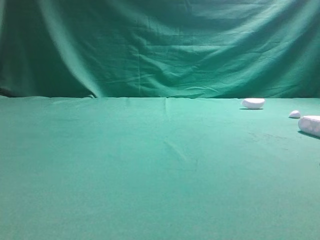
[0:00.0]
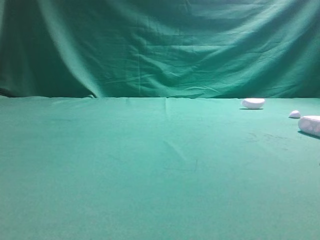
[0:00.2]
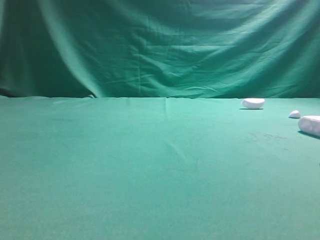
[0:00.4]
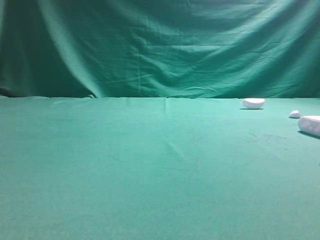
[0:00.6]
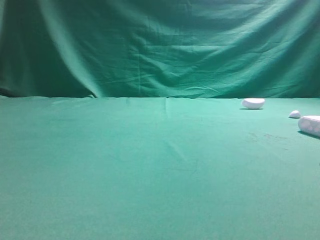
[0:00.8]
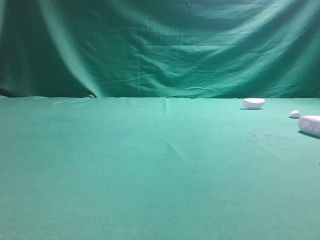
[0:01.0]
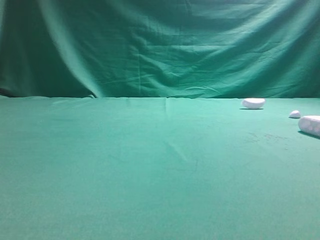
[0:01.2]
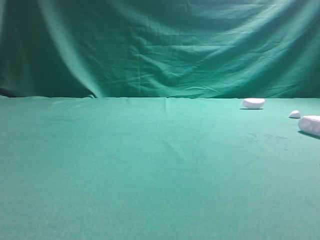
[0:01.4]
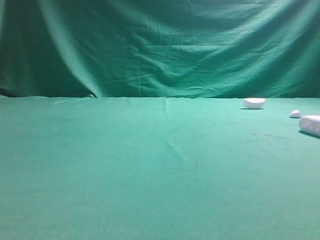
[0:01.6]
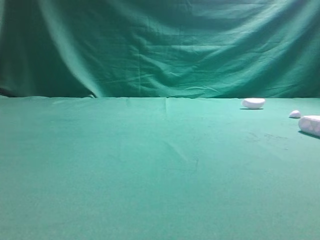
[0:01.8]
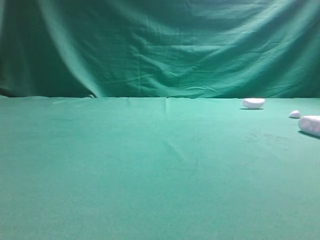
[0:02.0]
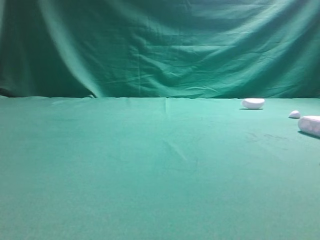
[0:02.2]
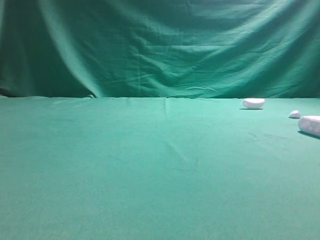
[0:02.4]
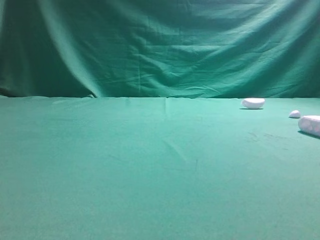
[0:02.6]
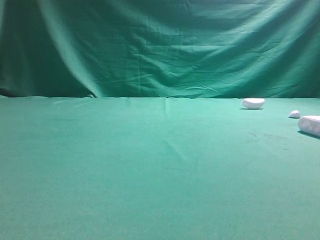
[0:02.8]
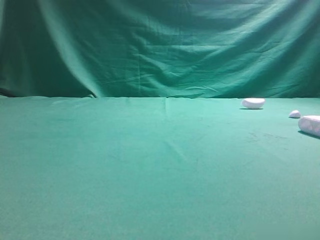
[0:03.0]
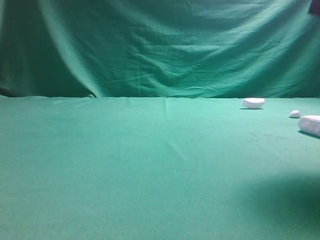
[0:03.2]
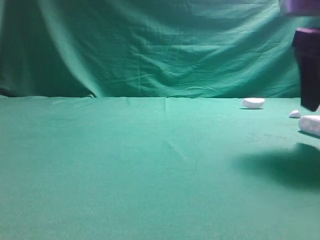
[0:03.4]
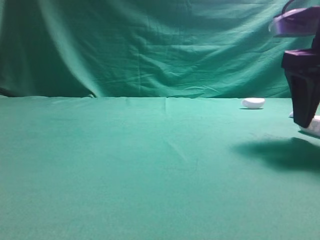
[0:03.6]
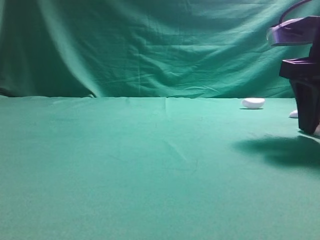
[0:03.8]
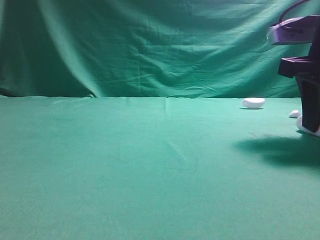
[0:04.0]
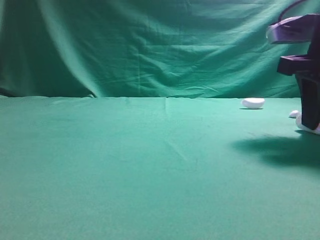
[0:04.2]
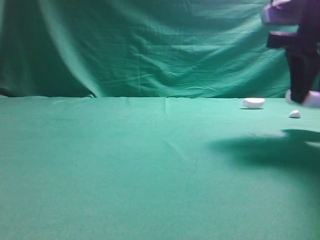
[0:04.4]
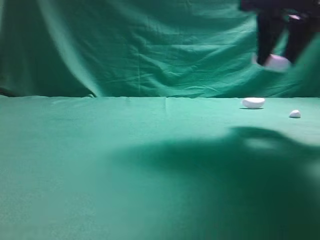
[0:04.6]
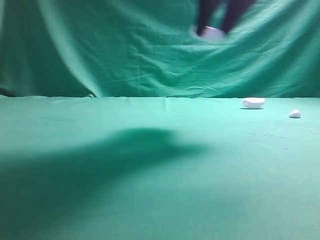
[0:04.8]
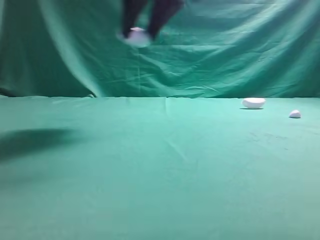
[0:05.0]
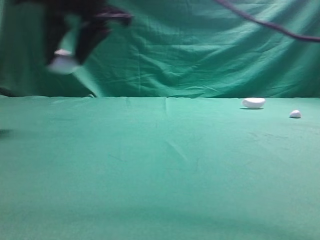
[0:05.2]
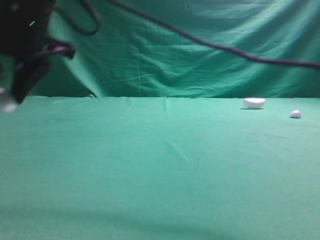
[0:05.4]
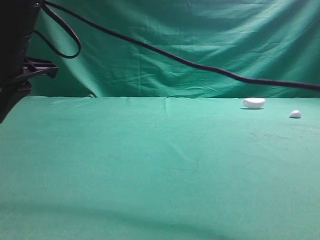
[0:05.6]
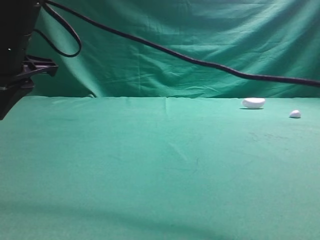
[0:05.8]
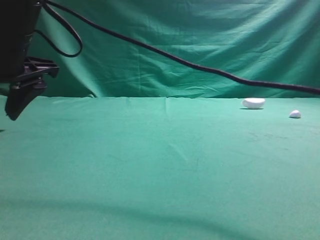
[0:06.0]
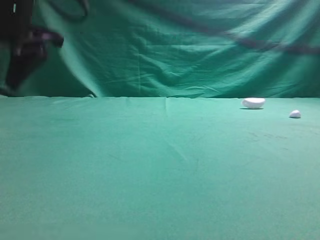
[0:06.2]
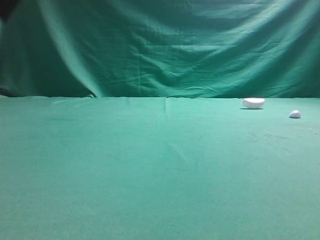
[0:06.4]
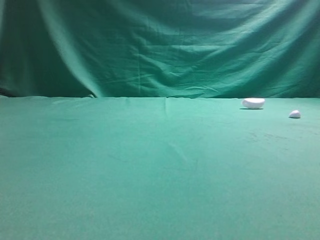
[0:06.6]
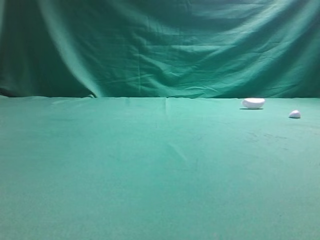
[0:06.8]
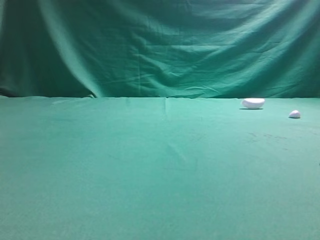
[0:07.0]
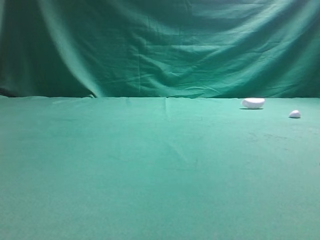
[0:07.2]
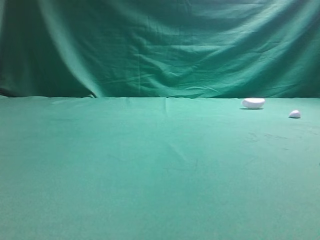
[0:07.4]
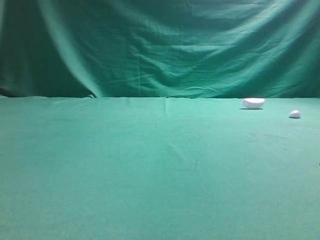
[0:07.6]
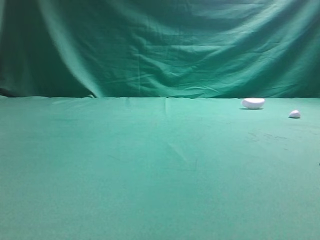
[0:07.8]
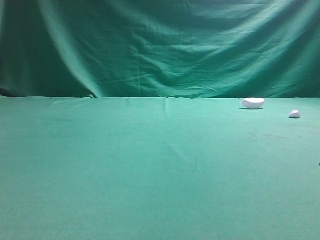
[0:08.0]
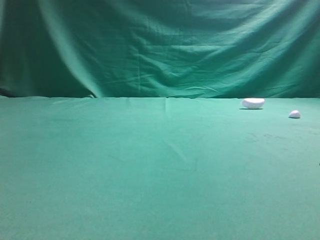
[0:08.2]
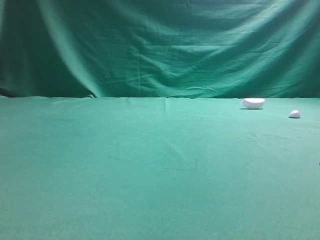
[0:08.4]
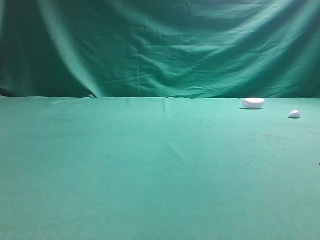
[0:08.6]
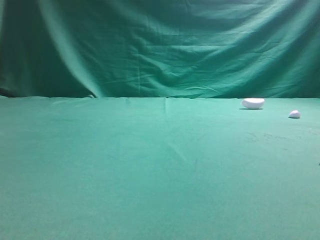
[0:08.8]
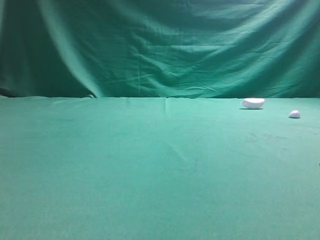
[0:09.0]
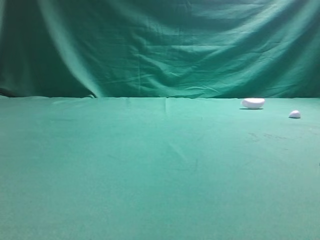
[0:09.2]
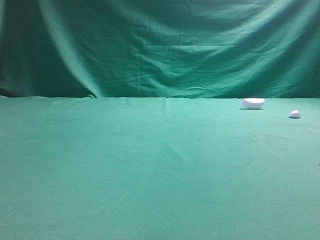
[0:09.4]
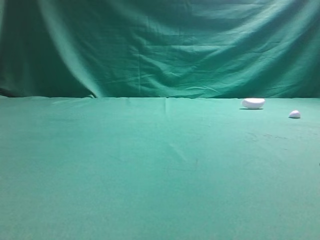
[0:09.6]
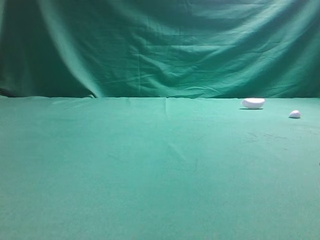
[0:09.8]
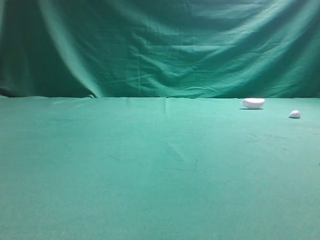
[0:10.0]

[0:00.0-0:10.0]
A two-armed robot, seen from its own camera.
Step, 0:00.0 to 0:04.4: Grasp the Bluetooth earphone case.
Step, 0:04.6 to 0:06.2: Place bluetooth earphone case on the left side of the table.

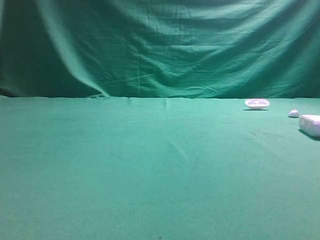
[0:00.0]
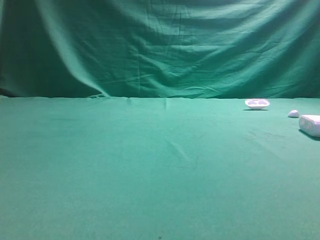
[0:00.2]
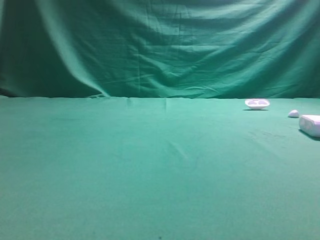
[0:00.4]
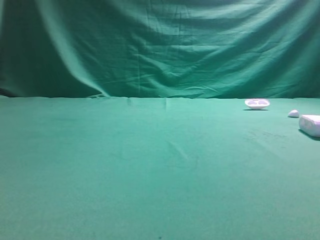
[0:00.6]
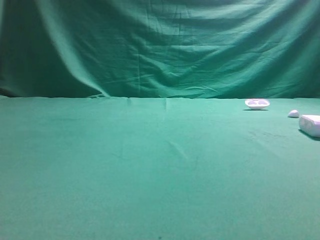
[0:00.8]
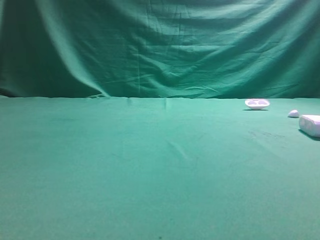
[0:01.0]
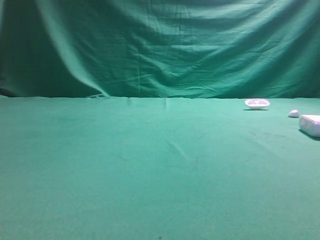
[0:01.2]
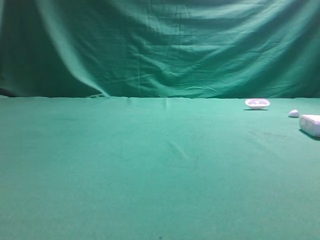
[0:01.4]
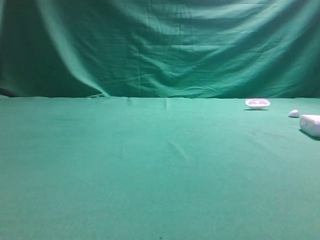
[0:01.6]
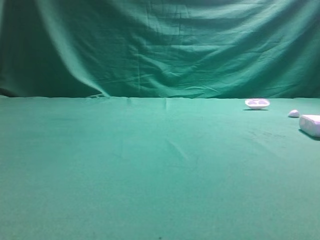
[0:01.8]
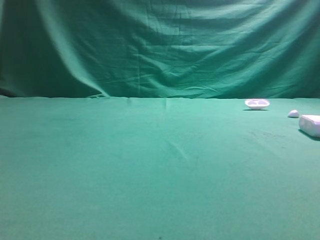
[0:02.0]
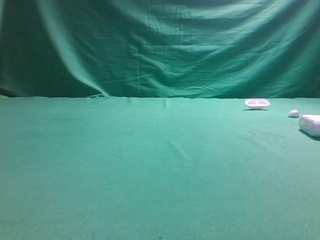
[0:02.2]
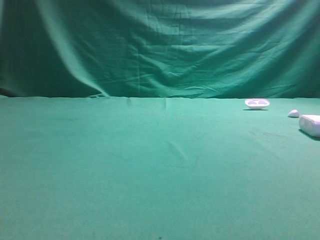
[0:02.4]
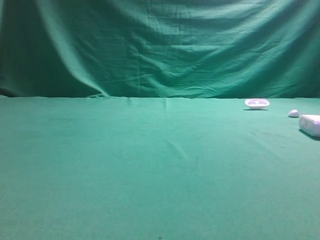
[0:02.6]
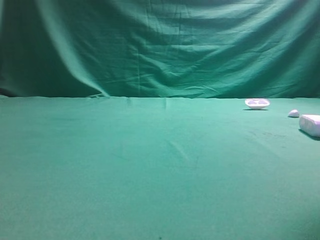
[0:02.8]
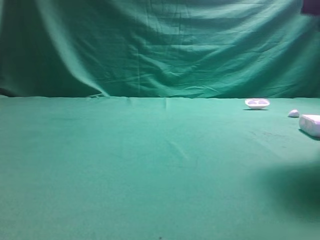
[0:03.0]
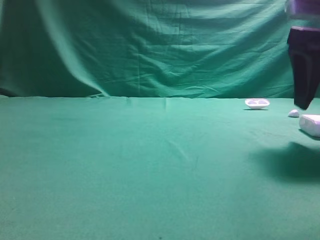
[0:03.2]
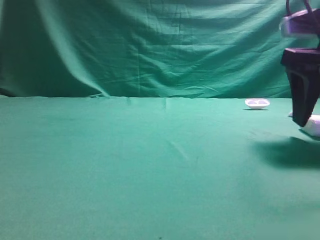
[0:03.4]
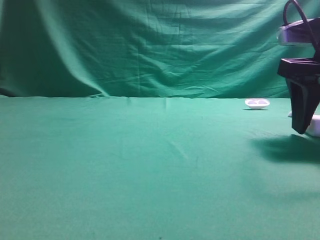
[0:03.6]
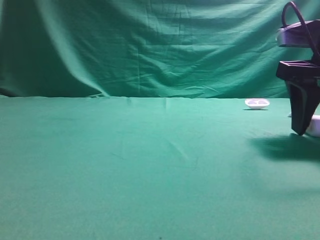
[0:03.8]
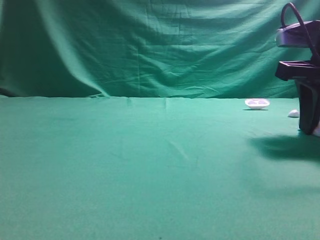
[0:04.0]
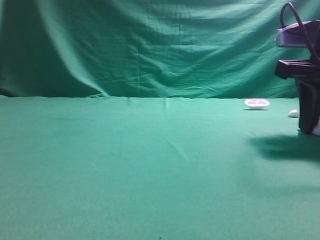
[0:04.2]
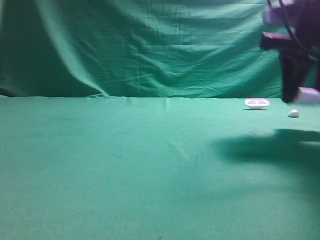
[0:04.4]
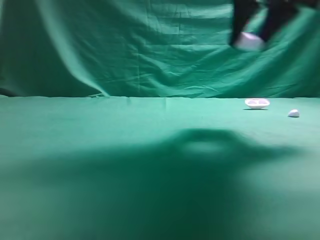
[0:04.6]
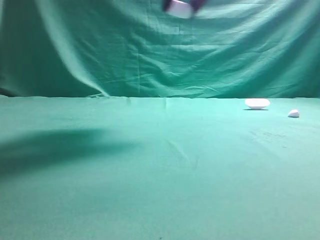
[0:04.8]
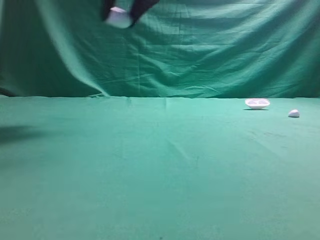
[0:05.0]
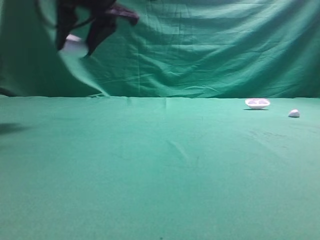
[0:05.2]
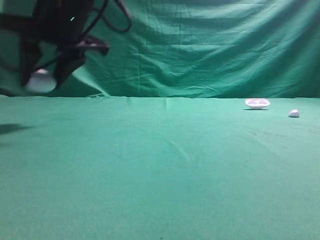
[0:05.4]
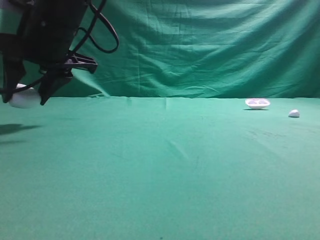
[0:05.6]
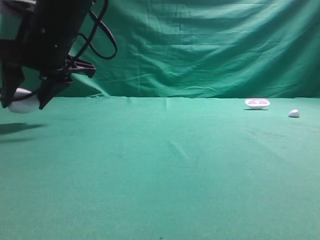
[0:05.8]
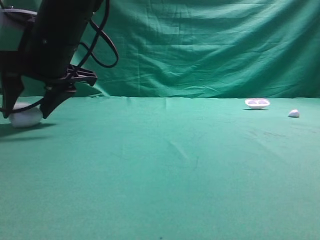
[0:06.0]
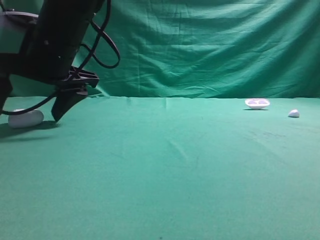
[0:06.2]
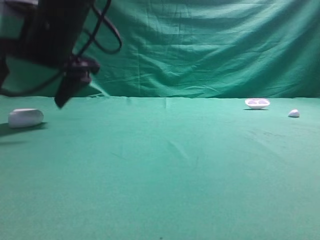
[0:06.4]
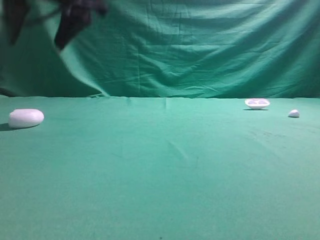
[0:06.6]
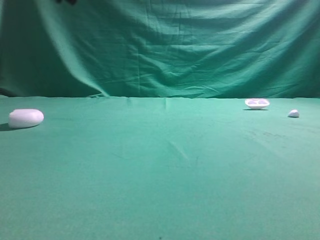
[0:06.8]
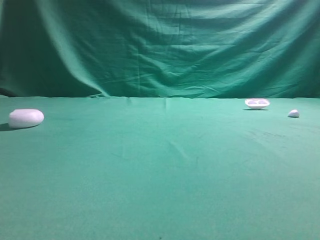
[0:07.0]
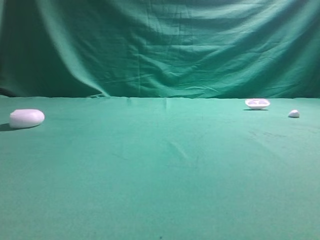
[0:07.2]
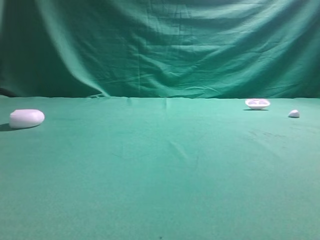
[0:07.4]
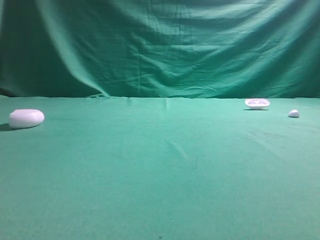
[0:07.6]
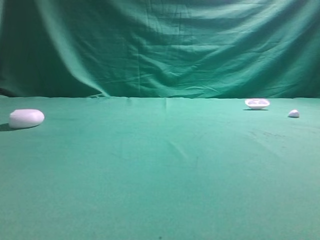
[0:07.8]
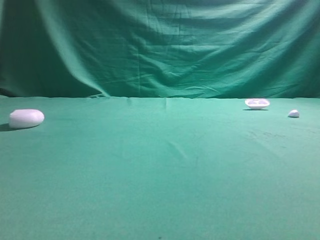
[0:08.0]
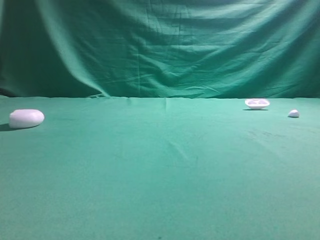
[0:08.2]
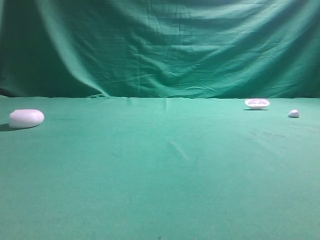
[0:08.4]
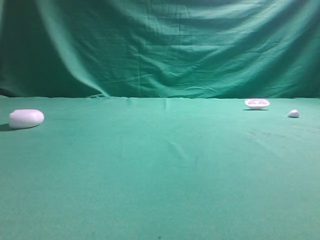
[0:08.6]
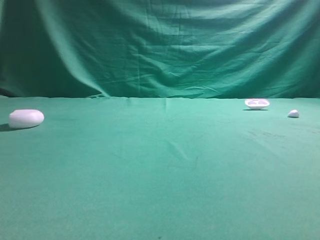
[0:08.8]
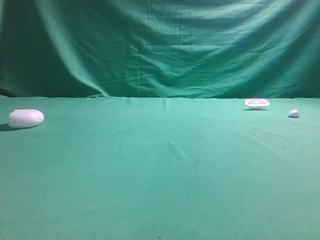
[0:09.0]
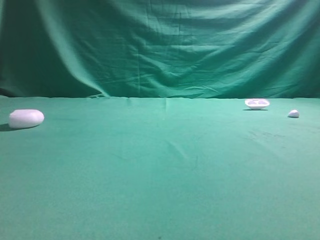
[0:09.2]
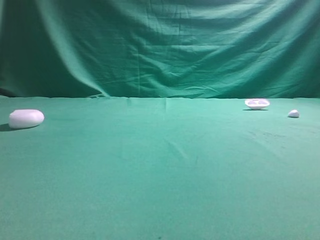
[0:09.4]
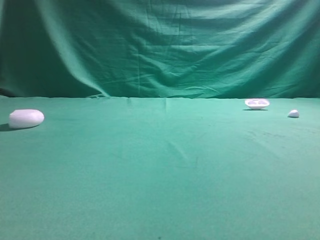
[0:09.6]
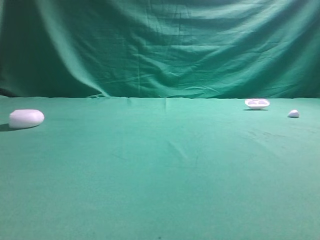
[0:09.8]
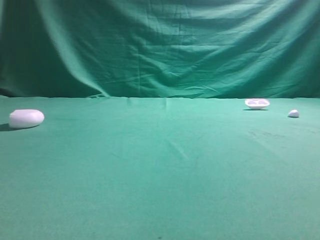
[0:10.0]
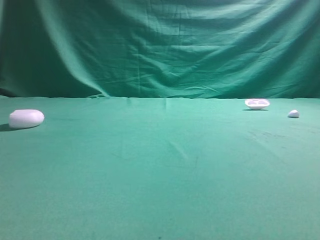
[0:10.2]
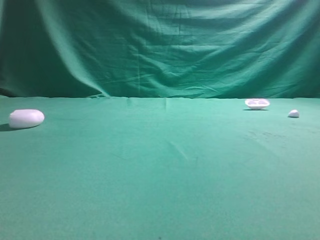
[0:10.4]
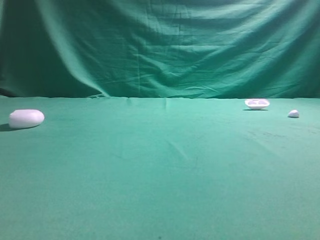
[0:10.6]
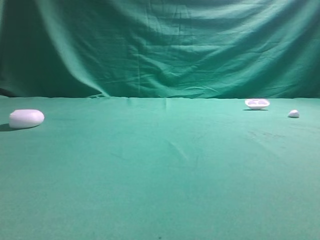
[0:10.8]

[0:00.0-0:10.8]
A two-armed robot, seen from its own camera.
Step, 0:00.0 to 0:04.4: Grasp the Bluetooth earphone case.
Step, 0:04.6 to 0:06.4: Place bluetooth earphone case on the left side of the table.

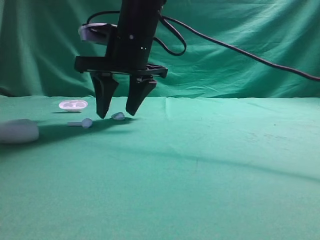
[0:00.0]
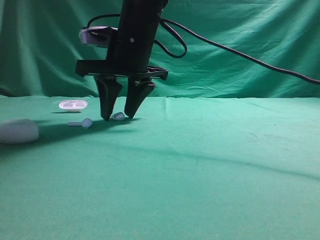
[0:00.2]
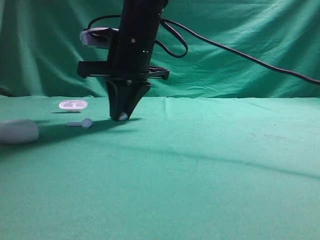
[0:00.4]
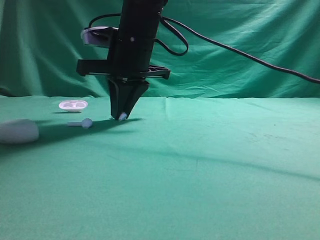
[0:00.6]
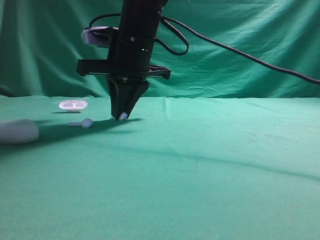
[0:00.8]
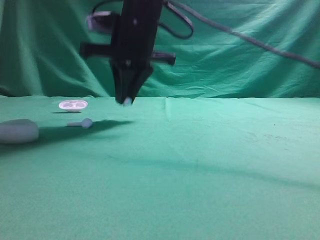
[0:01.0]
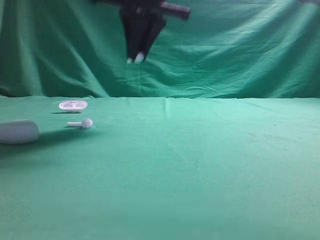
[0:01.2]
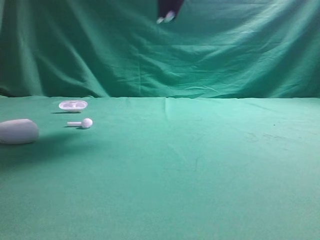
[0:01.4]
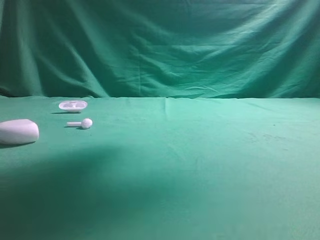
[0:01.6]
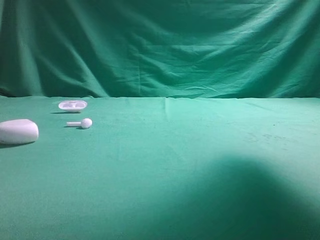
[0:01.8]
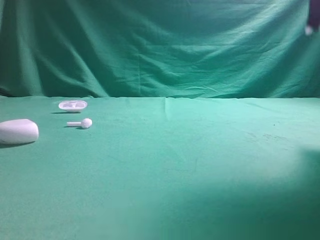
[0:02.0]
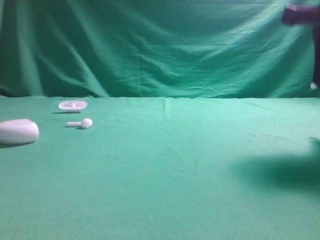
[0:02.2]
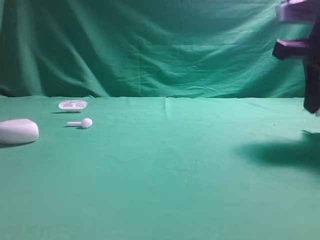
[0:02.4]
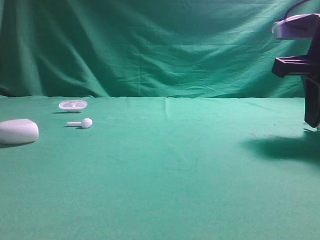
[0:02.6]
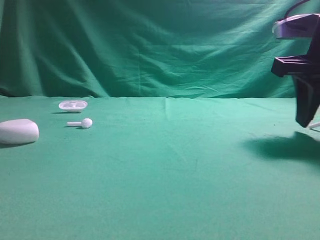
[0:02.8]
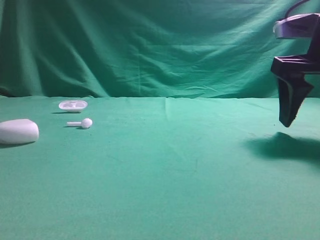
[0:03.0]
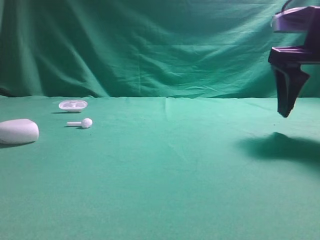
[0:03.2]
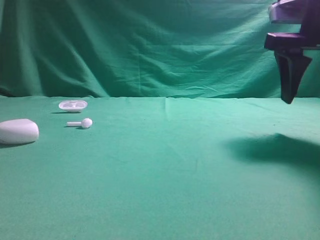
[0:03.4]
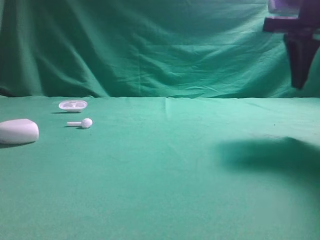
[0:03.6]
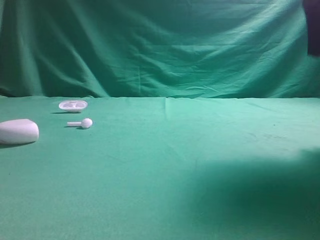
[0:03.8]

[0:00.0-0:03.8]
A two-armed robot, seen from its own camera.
Step, 0:01.4 to 0:03.6: Place bluetooth earbud on the right side of the table.
